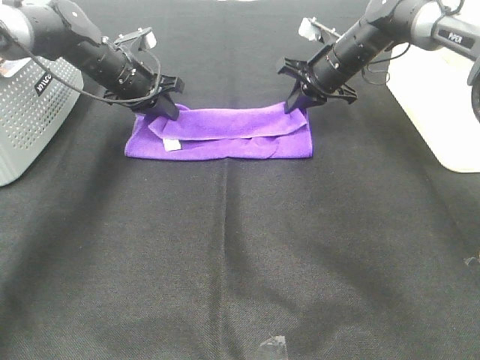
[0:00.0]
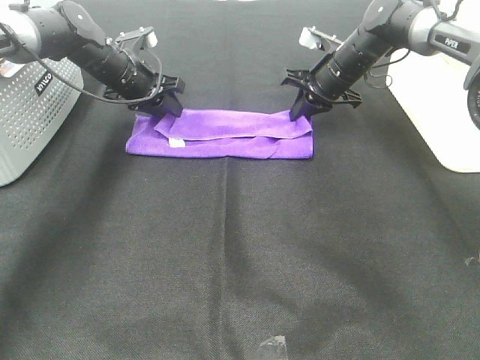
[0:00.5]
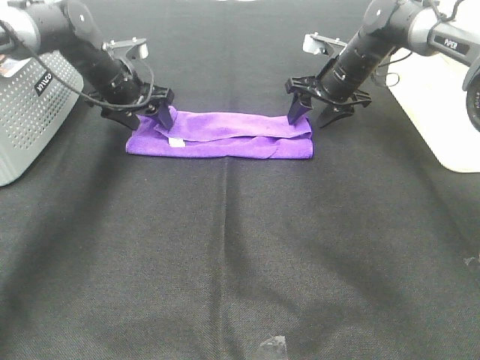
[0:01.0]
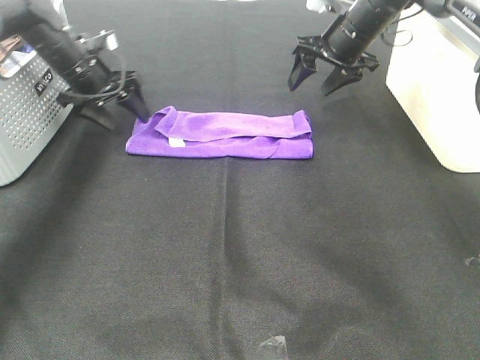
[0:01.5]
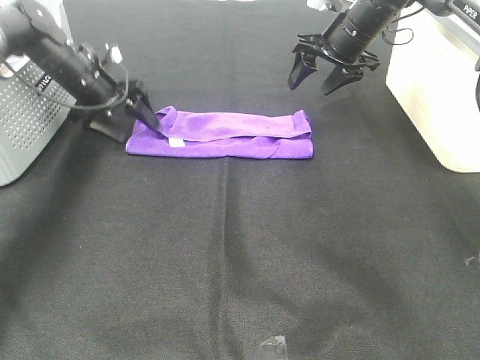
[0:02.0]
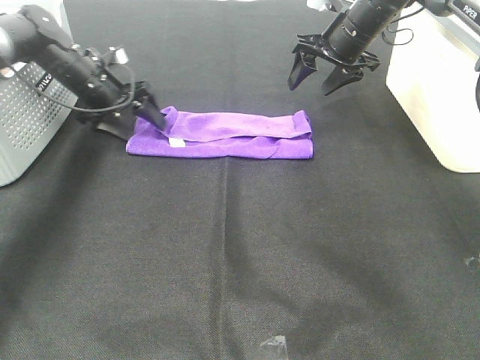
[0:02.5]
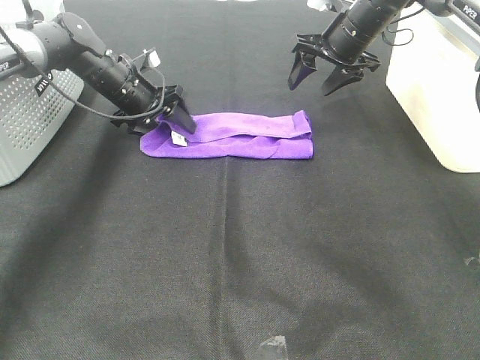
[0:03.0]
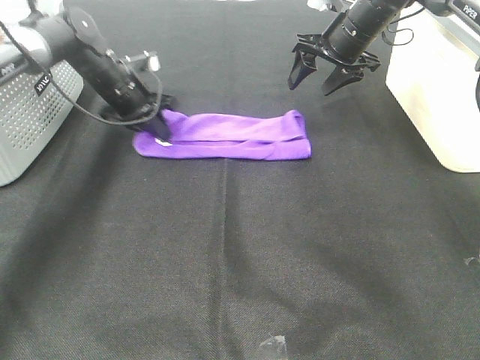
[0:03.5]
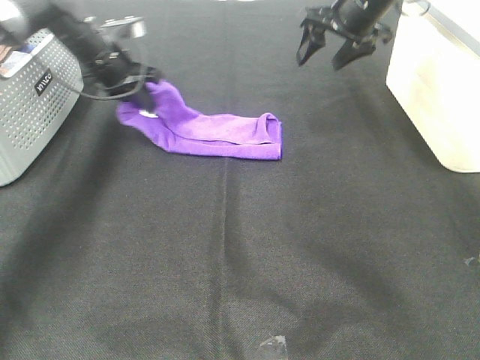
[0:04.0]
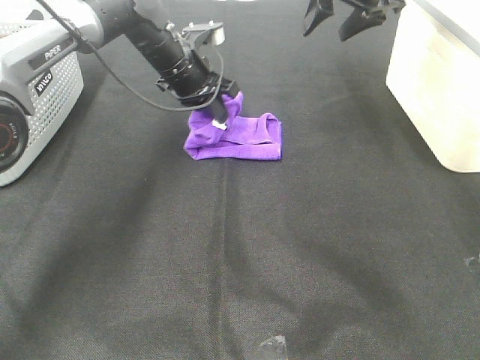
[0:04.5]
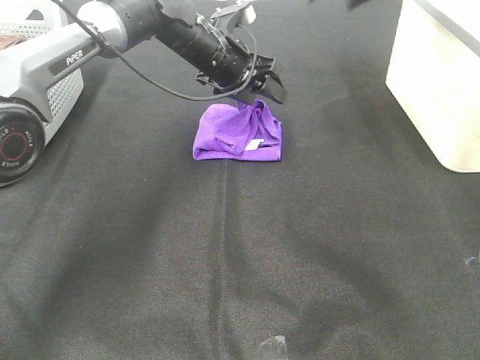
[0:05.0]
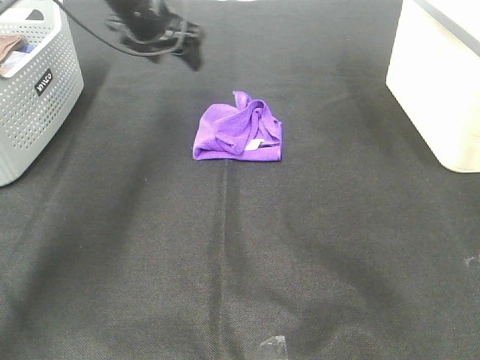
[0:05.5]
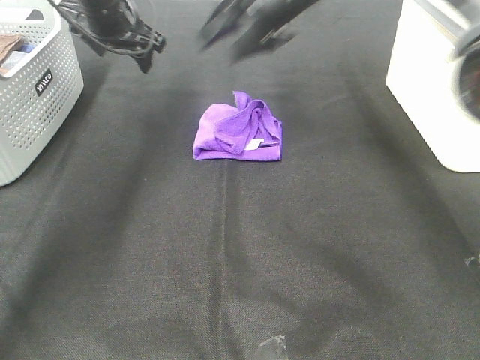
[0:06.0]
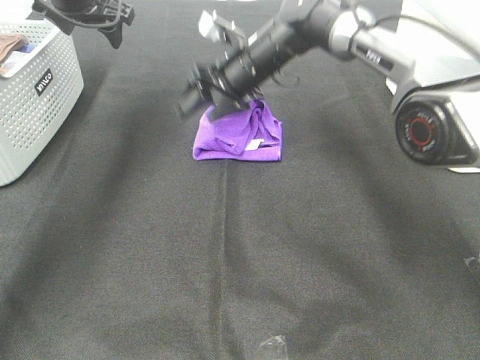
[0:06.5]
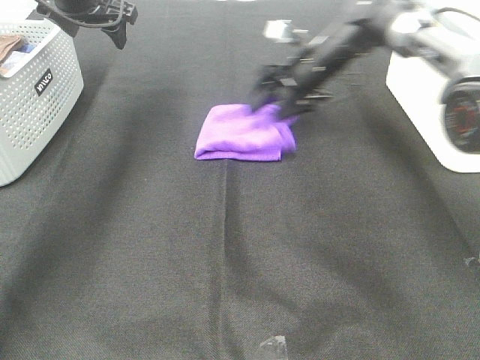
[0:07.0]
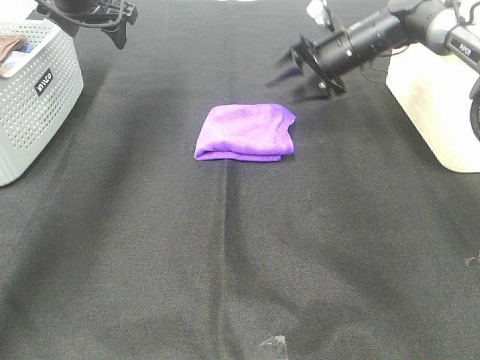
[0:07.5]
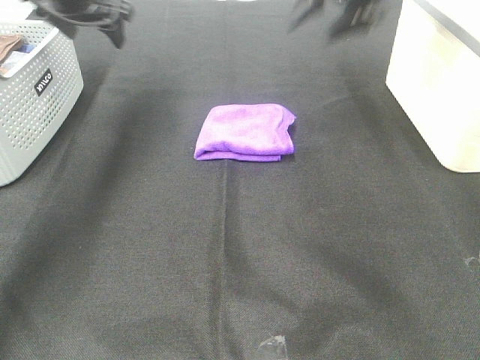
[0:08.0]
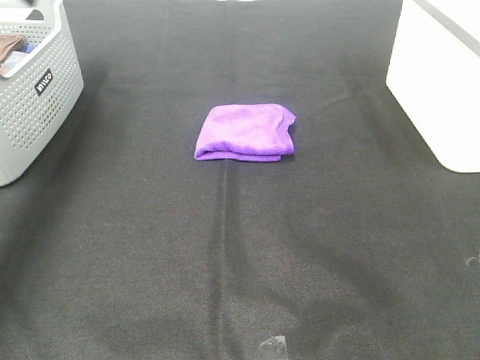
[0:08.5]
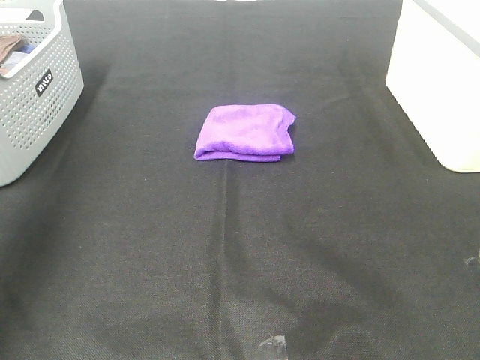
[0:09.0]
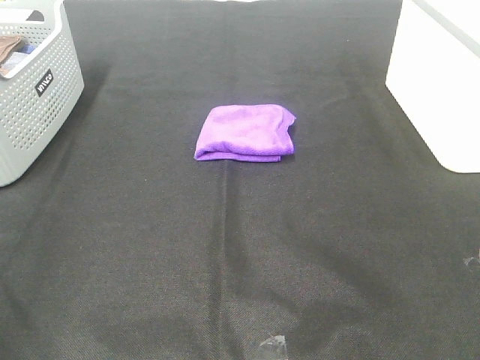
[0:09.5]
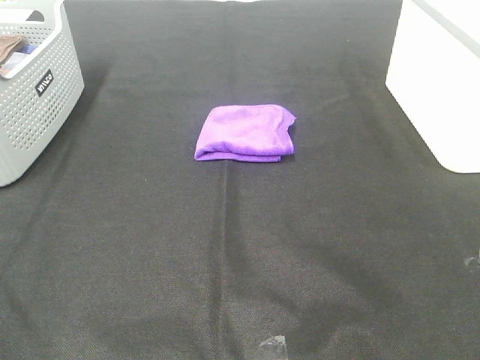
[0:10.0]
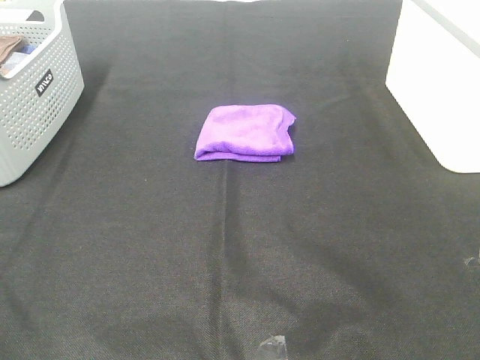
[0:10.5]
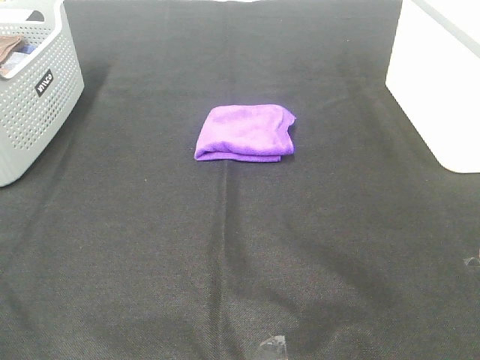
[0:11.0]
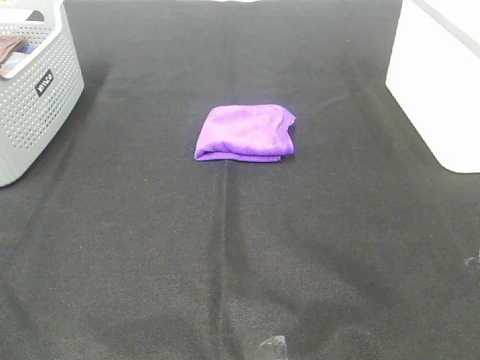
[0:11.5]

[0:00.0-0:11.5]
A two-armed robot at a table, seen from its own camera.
Task of the whole recording: Fold towels.
Step, 0:00.5 to 0:04.5: Left hand: fold the purple towel from left to right.
Step, 0:05.0 to 0:06.5: Right hand: adjust the purple towel.
0:00.0 to 0:02.0: The right gripper moves upward, roughly 5 cm, and opens up. Meanwhile the left gripper goes roughly 5 cm to the left, and opens.
0:02.0 to 0:04.0: The left gripper travels to the right by some 5 cm, and closes up. The right gripper moves upward, roughly 5 cm.
0:04.0 to 0:06.0: The left gripper goes about 10 cm upward, travels to the right and back again, some 15 cm each way, and opens its fingers, while the right gripper goes roughly 15 cm to the left.
0:06.0 to 0:07.5: The right gripper is displaced to the right, downward and forward by roughly 15 cm.
0:07.5 to 0:09.5: Both grippers move backward, about 50 cm.
